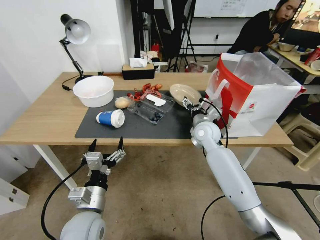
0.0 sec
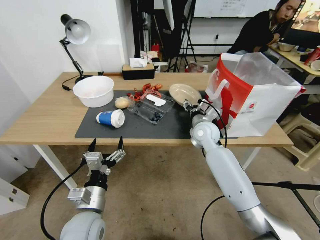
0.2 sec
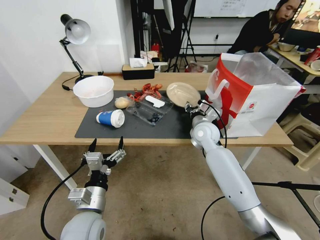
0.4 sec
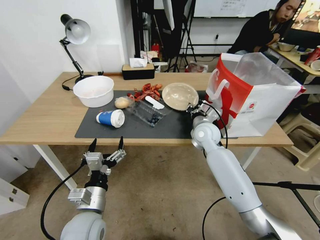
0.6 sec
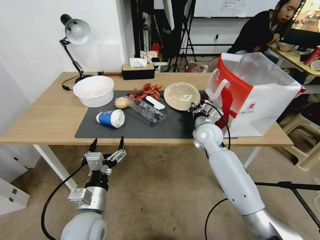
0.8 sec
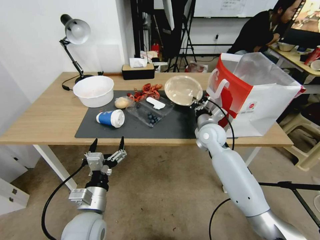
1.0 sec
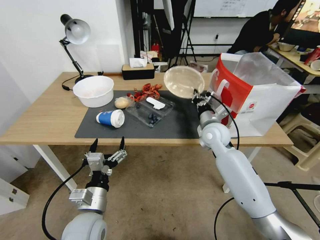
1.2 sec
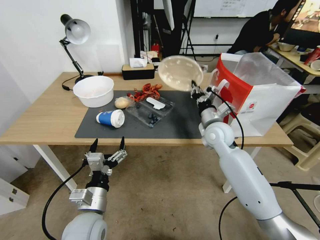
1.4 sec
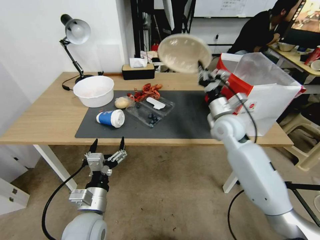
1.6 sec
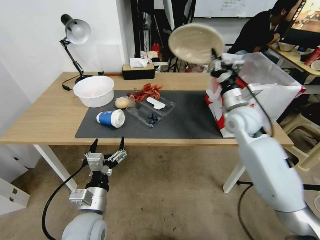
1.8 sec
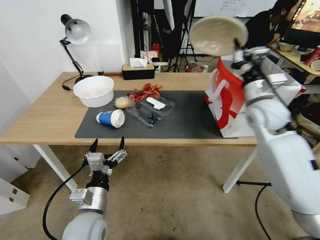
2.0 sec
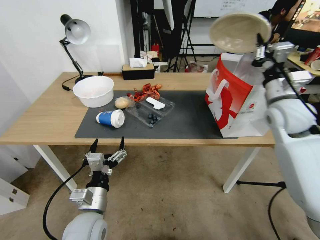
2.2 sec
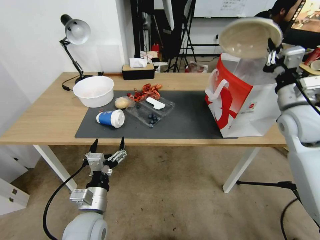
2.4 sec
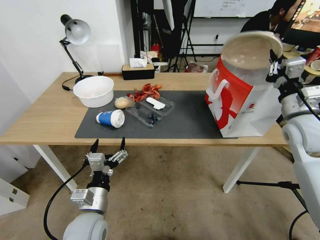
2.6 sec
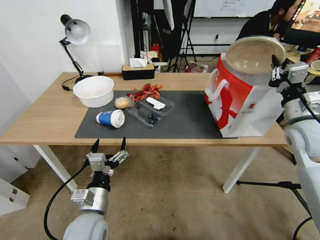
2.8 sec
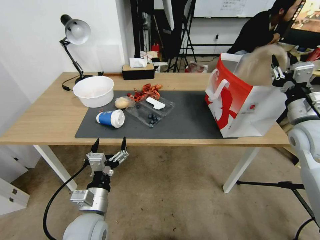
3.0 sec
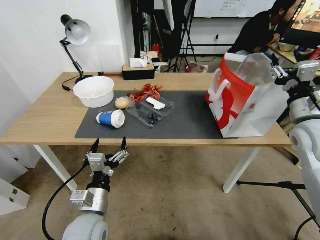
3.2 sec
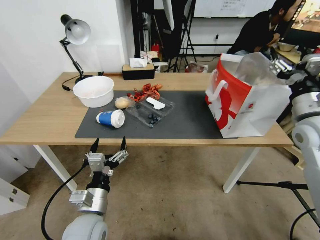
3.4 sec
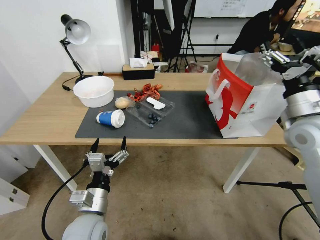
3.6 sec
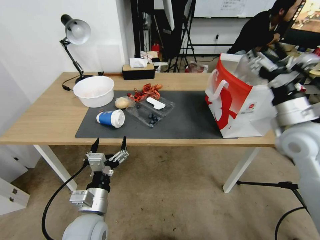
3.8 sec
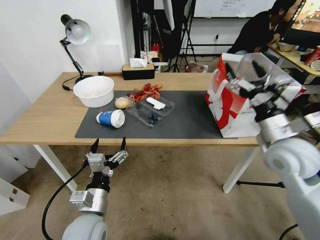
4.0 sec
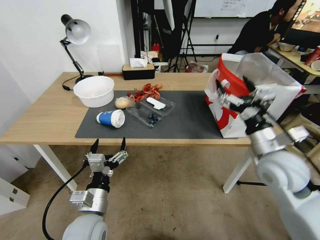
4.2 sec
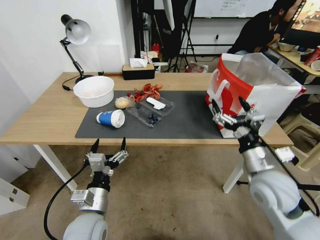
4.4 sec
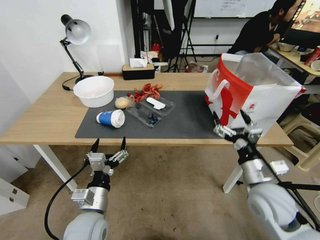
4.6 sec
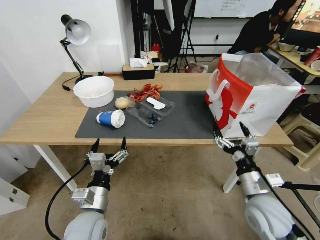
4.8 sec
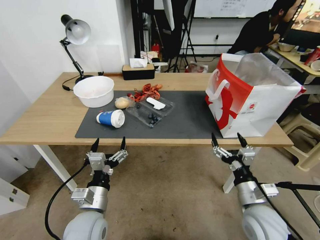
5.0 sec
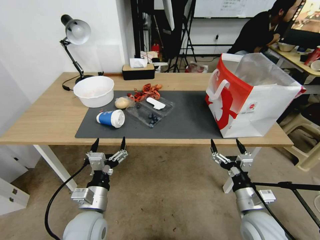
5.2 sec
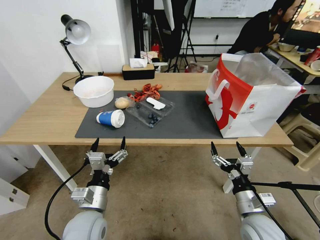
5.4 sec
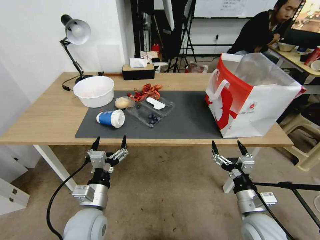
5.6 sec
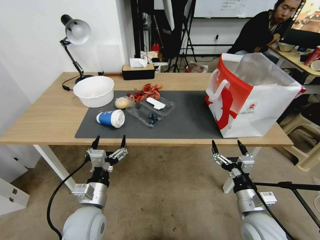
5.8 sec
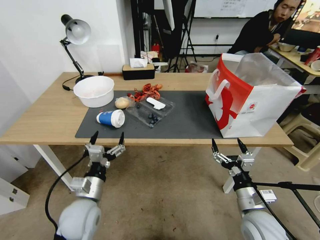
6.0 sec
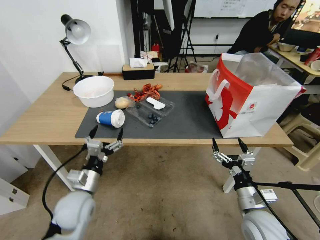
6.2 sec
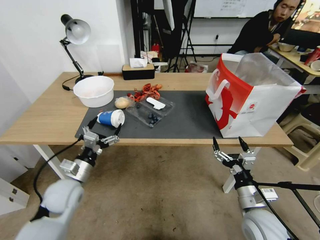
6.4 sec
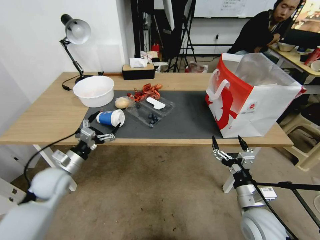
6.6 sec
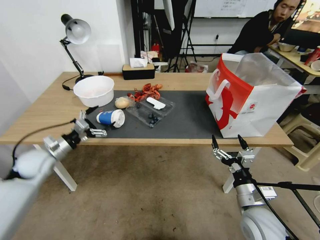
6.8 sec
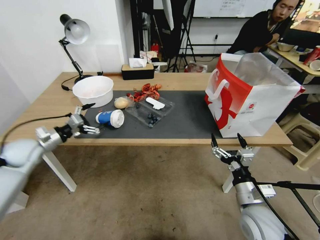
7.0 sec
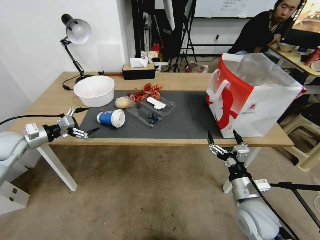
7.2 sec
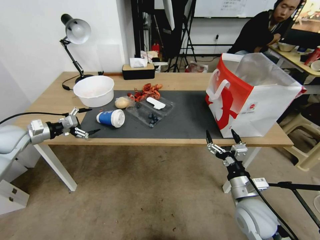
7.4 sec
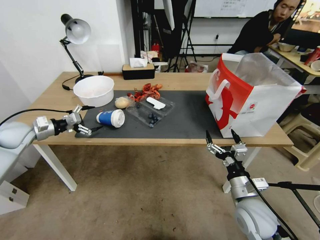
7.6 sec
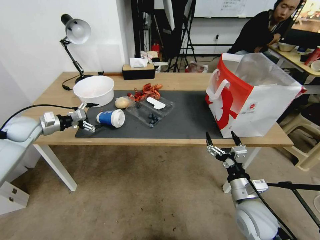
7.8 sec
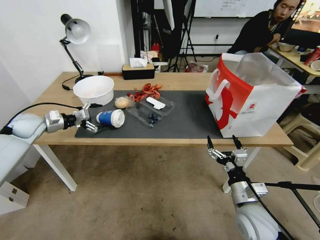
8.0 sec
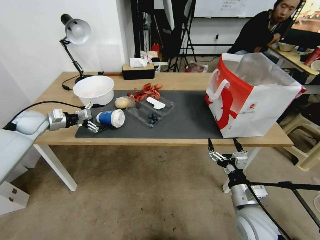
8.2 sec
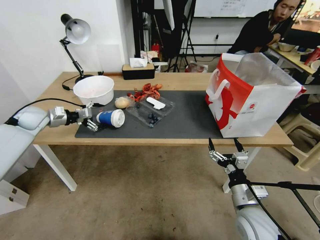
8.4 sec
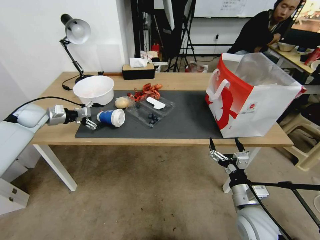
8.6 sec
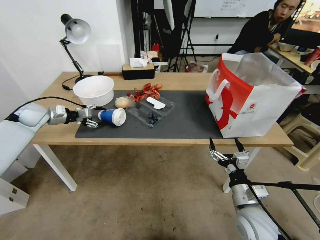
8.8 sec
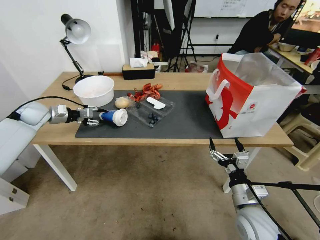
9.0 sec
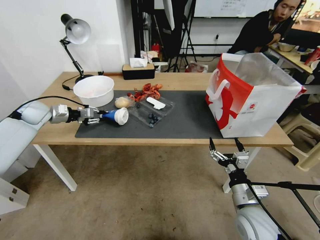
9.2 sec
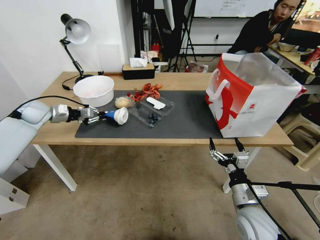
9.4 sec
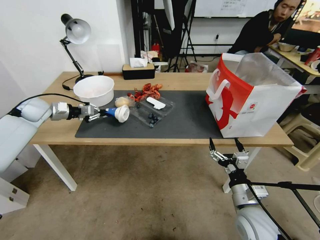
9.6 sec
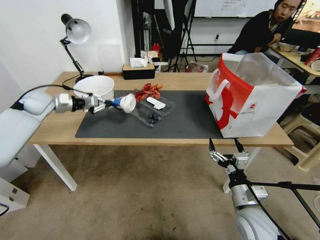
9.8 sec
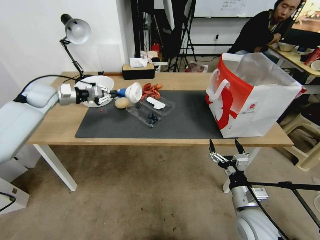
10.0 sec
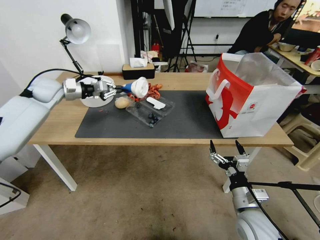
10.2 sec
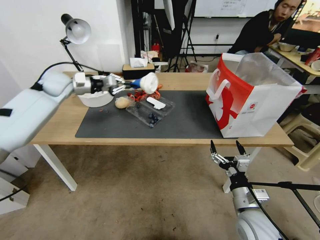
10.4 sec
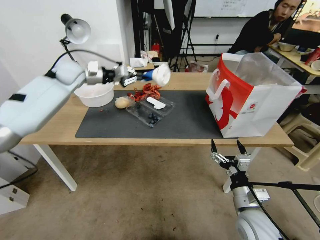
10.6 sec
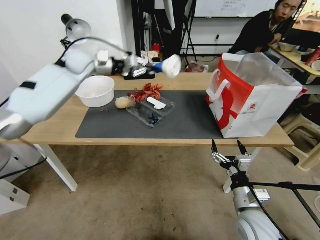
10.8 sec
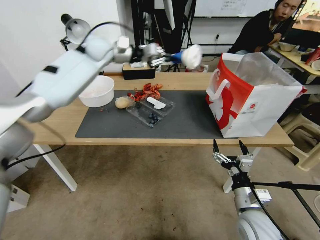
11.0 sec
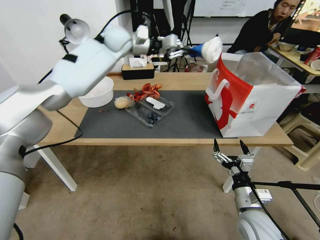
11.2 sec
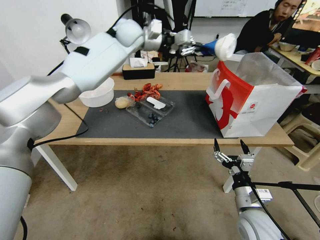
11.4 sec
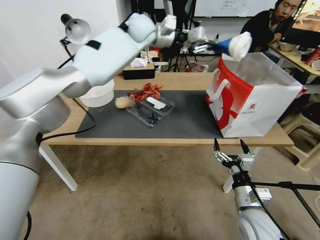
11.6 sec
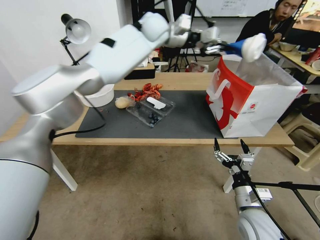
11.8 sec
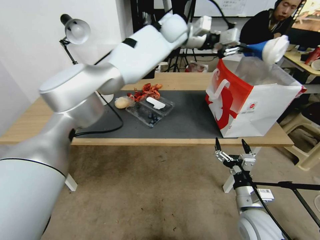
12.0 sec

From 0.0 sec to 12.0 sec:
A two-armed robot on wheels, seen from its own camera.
From 0.0 sec to 1.6 sec: The right gripper moves upward and to the right, about 10 cm, and closes.
From 1.6 sec to 3.0 sec: The right gripper travels to the right, backward and upward by roughly 20 cm.
From 3.0 sec to 4.4 sec: The right gripper goes roughly 15 cm to the left, downward and backward, and opens its fingers.
From 4.4 sec to 6.0 sec: The right gripper is displaced downward and backward by approximately 15 cm.
From 6.0 sec to 7.6 sec: The left gripper travels to the left and forward by roughly 35 cm.
From 7.6 sec to 9.0 sec: The left gripper travels forward by some 10 cm, and closes.
From 9.0 sec to 10.4 sec: The left gripper heads to the right, upward and forward, covering about 15 cm, and closes its fingers.
From 10.4 sec to 12.0 sec: The left gripper moves to the right, some 40 cm.

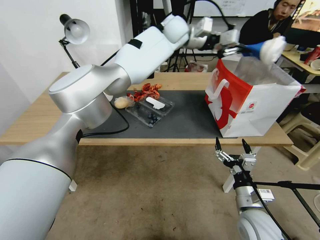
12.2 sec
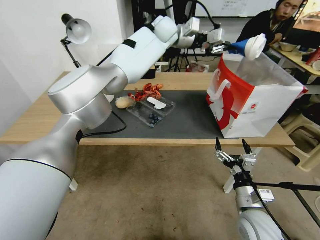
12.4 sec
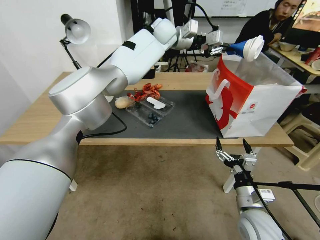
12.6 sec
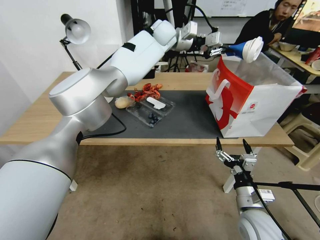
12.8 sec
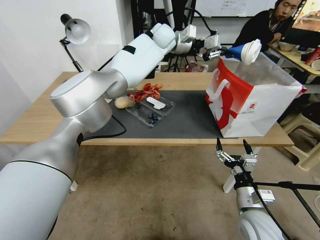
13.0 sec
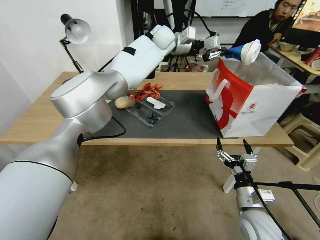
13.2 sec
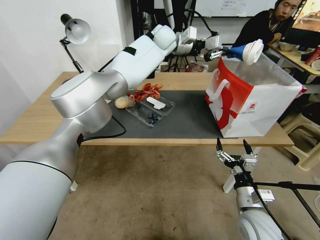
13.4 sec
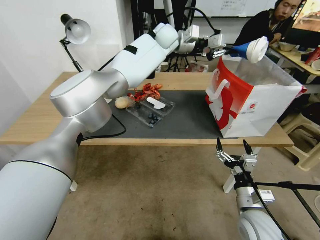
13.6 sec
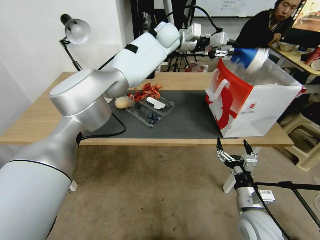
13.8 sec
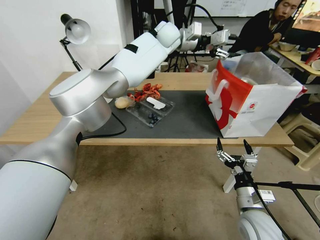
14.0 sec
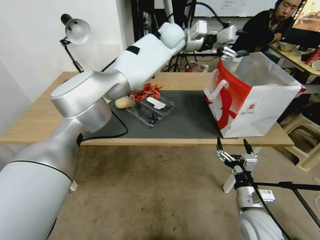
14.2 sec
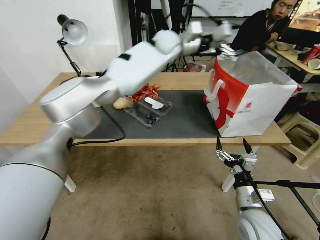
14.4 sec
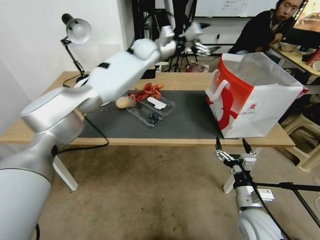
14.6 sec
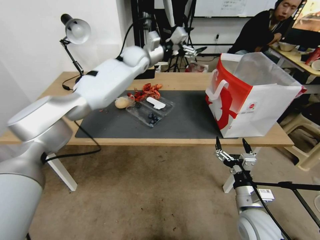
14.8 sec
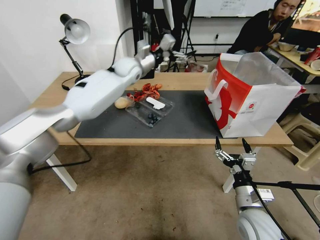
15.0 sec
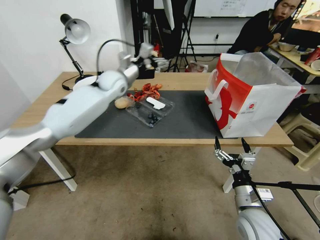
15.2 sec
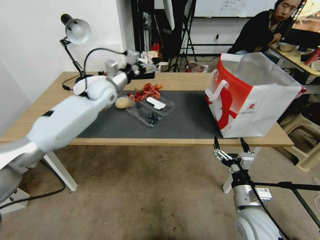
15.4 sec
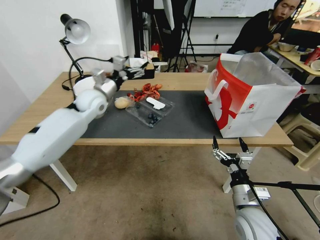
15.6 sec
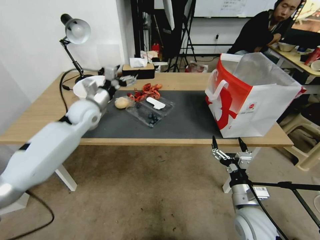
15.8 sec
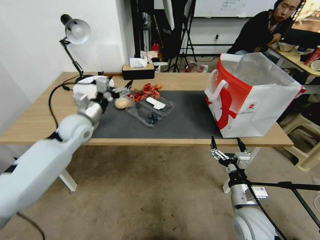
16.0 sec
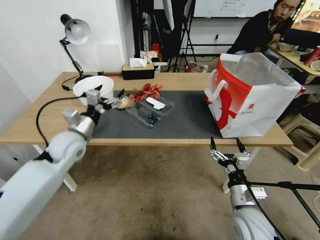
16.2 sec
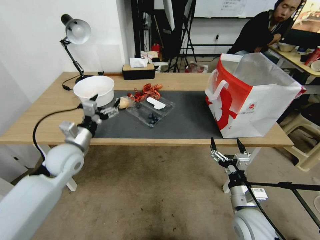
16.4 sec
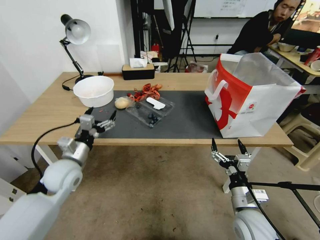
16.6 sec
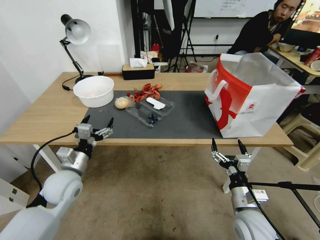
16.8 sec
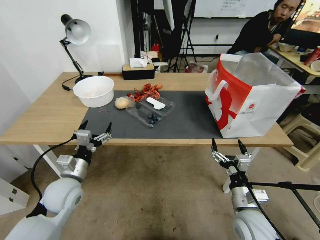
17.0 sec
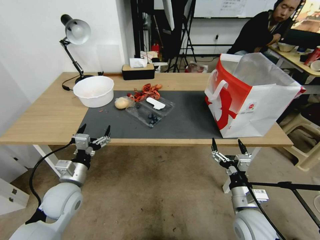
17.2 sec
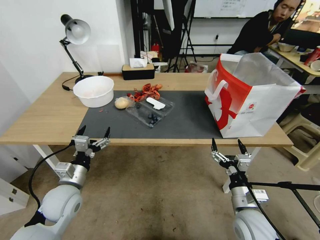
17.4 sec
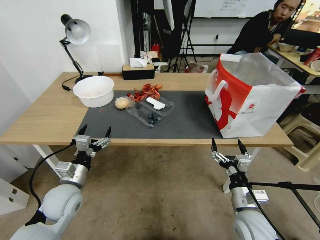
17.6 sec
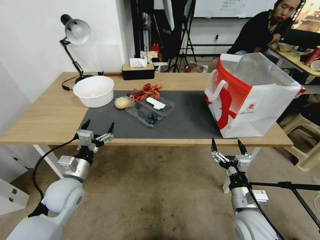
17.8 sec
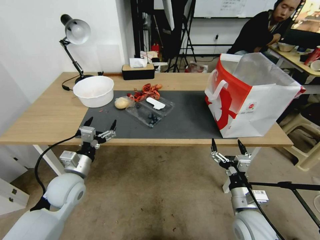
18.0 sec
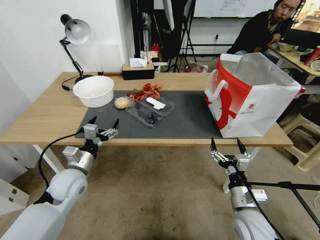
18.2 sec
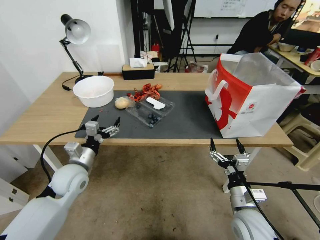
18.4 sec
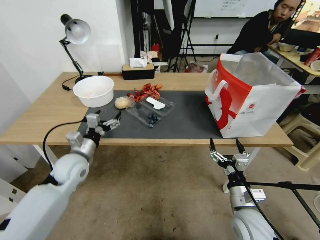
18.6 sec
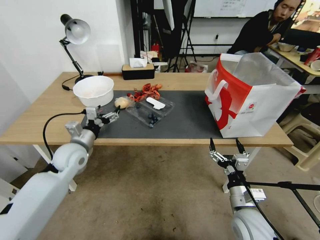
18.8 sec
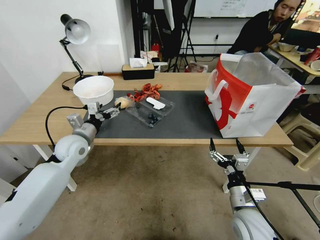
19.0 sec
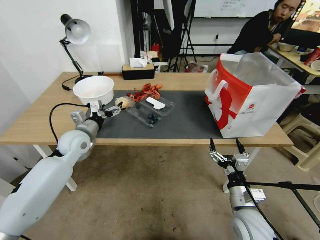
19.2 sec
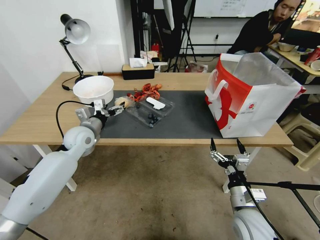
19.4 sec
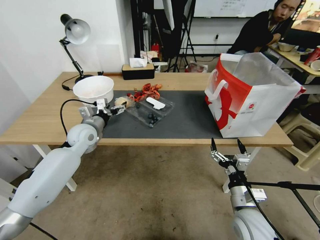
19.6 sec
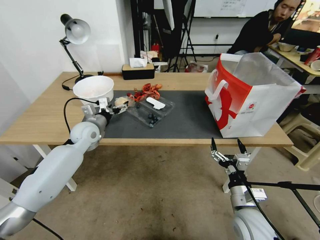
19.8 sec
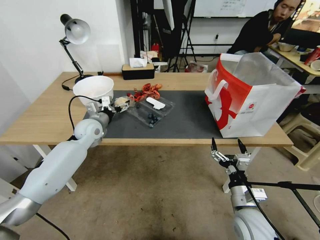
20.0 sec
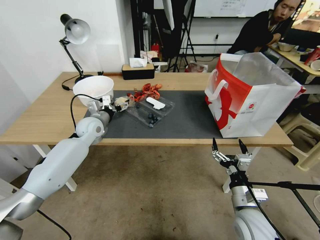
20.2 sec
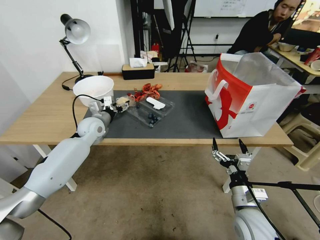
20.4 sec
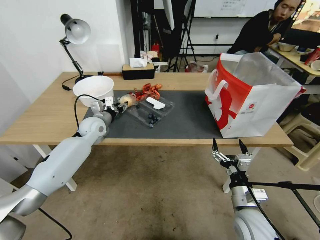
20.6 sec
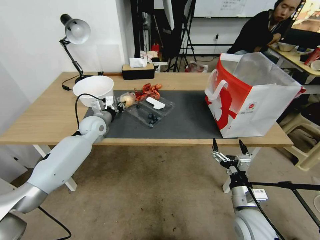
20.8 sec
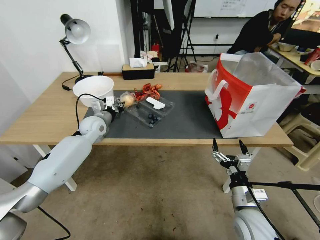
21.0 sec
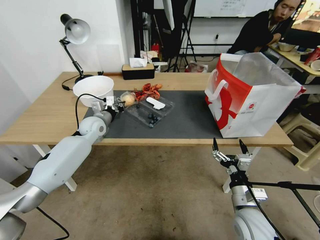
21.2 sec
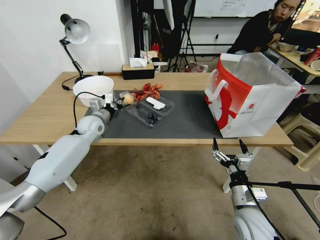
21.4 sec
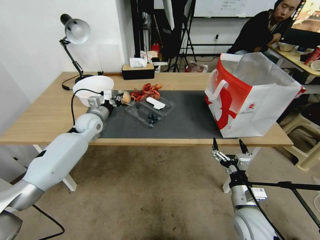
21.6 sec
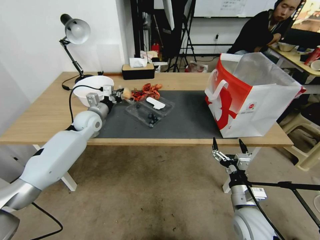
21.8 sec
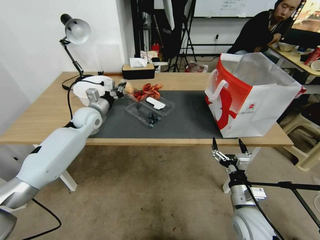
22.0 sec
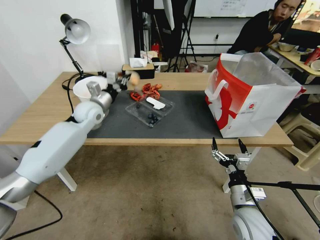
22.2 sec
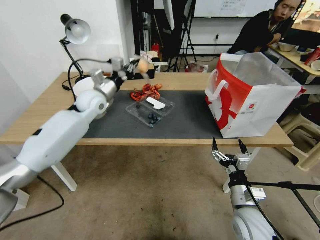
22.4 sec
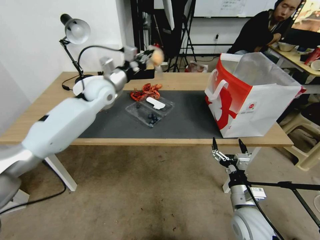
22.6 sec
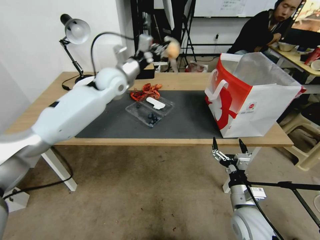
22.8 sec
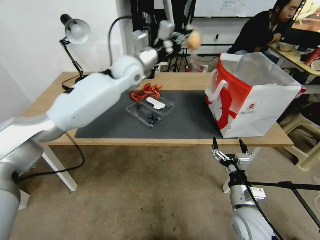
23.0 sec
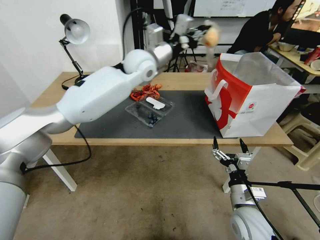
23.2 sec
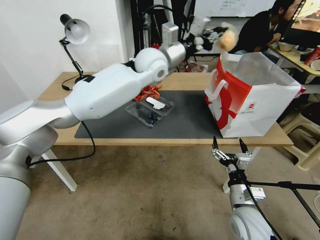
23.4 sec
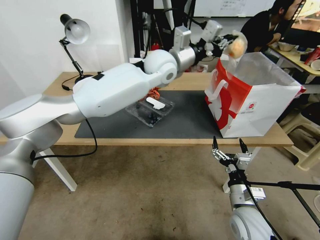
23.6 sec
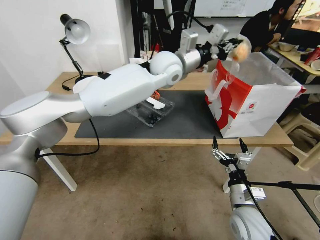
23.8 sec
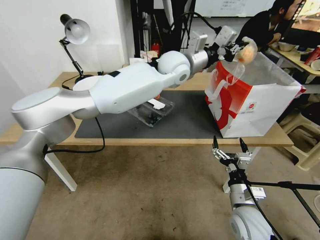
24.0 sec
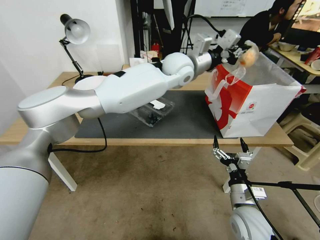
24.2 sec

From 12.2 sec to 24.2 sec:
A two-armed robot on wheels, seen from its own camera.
From 12.2 sec to 13.8 sec: There are only small adjustments of the grippers.
From 13.8 sec to 15.2 sec: The left gripper is displaced to the left, downward and backward by some 25 cm, and opens.
From 15.2 sec to 16.6 sec: The left gripper heads backward, downward and to the left, covering roughly 35 cm.
From 18.2 sec to 19.8 sec: The left gripper shifts roughly 15 cm forward.
From 19.8 sec to 21.2 sec: The left gripper changes place by roughly 5 cm, and closes up.
From 21.2 sec to 22.6 sec: The left gripper goes approximately 20 cm upward and to the right.
From 22.6 sec to 24.2 sec: The left gripper heads to the right, covering approximately 25 cm.
